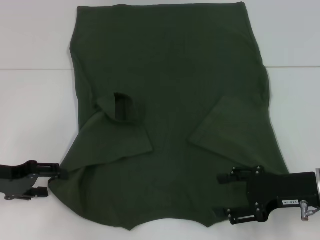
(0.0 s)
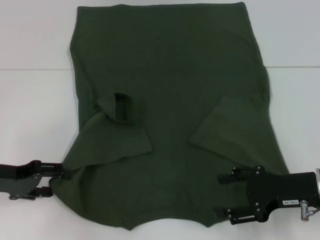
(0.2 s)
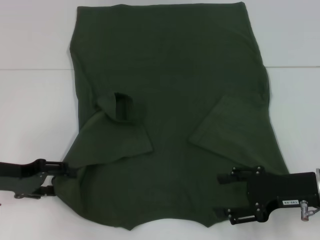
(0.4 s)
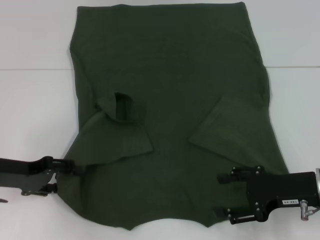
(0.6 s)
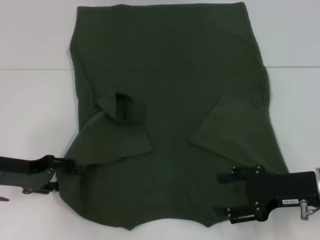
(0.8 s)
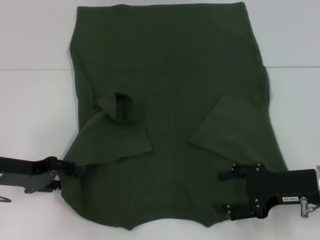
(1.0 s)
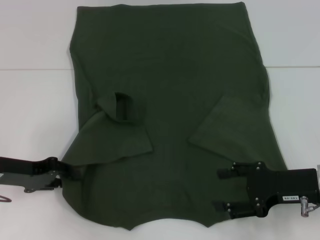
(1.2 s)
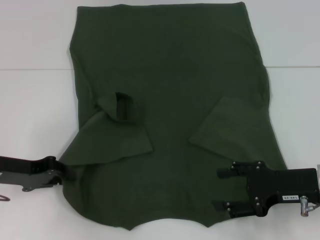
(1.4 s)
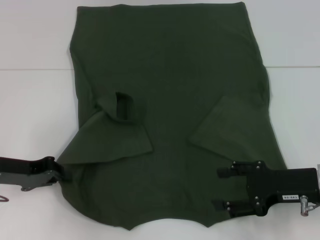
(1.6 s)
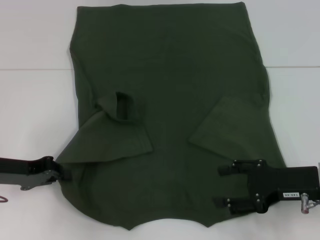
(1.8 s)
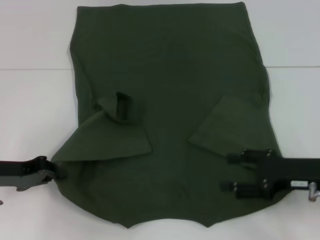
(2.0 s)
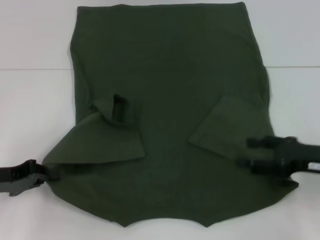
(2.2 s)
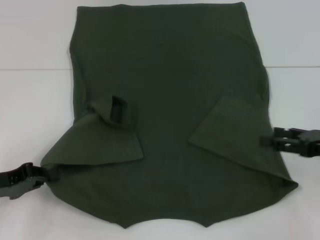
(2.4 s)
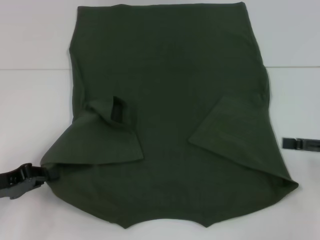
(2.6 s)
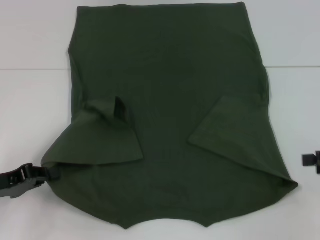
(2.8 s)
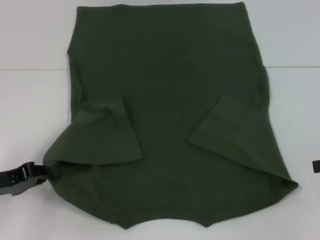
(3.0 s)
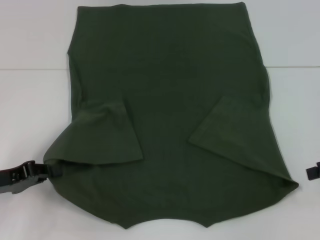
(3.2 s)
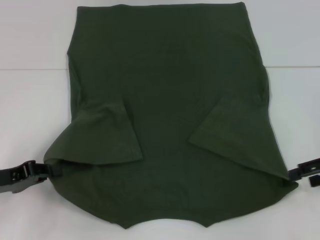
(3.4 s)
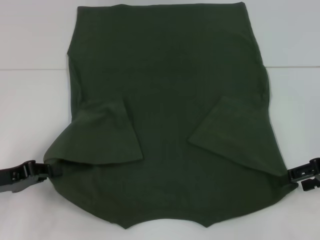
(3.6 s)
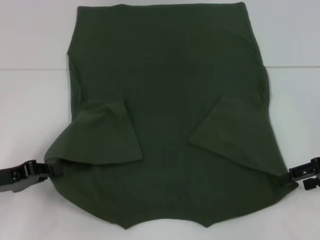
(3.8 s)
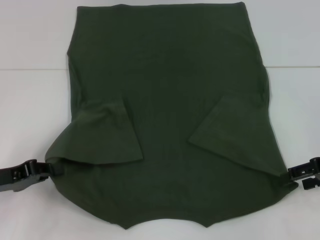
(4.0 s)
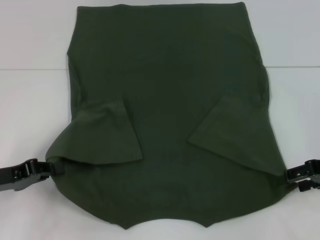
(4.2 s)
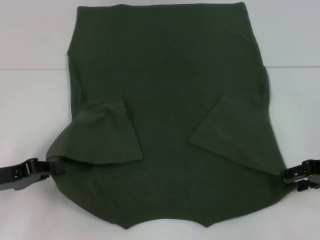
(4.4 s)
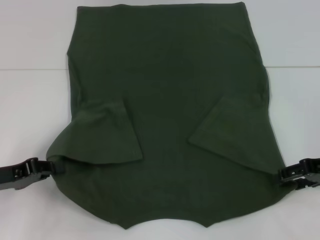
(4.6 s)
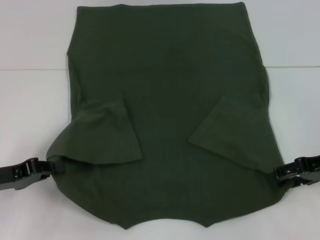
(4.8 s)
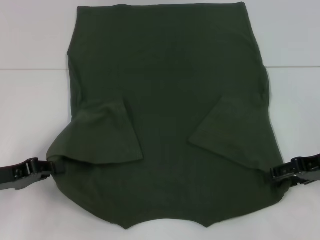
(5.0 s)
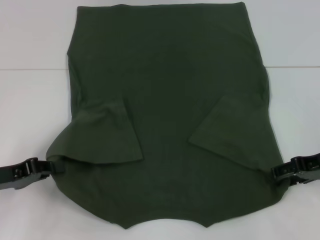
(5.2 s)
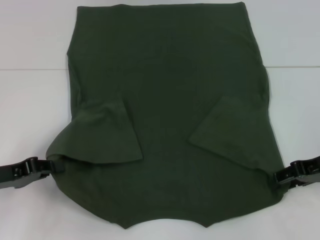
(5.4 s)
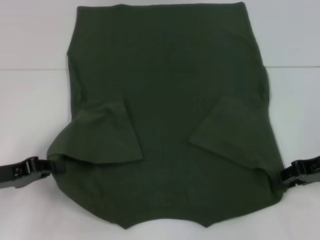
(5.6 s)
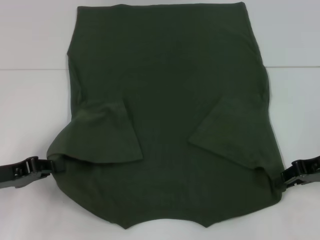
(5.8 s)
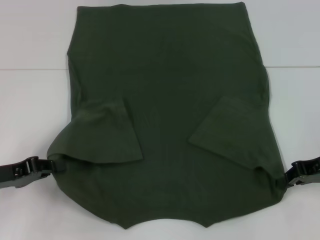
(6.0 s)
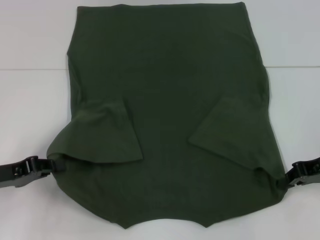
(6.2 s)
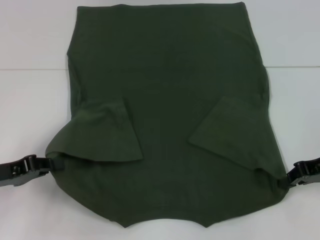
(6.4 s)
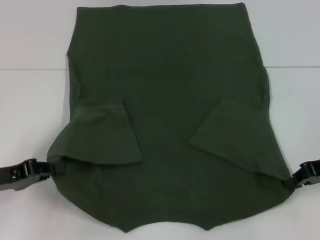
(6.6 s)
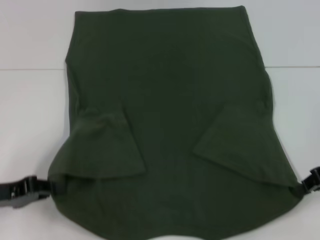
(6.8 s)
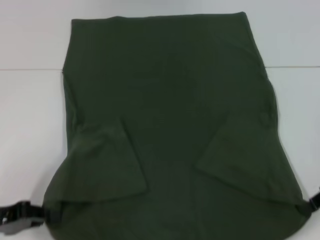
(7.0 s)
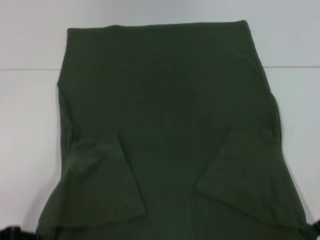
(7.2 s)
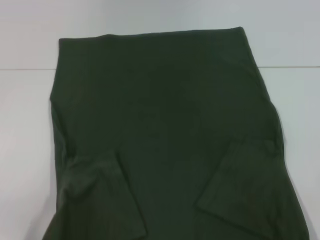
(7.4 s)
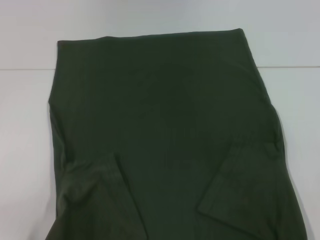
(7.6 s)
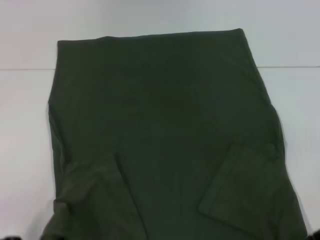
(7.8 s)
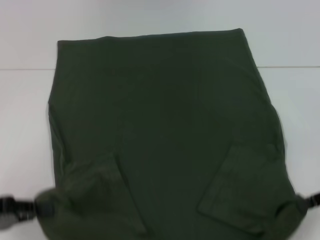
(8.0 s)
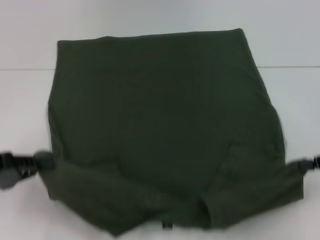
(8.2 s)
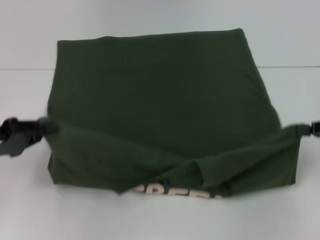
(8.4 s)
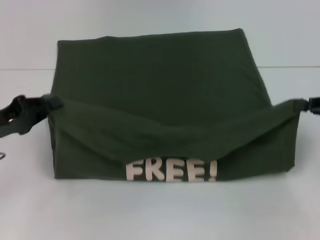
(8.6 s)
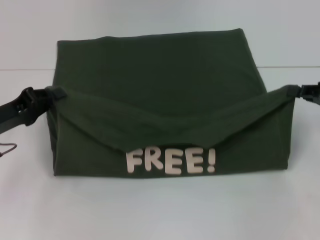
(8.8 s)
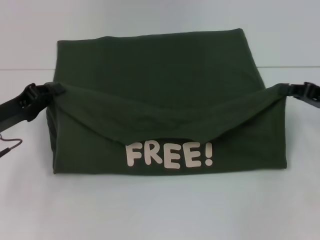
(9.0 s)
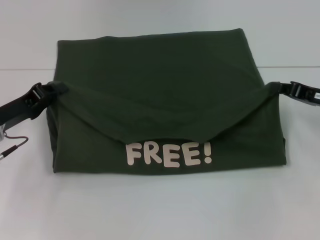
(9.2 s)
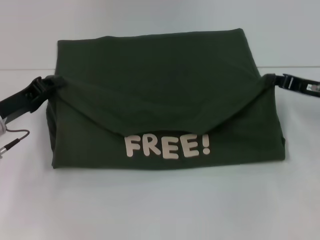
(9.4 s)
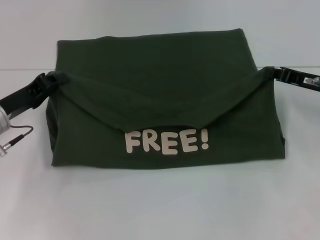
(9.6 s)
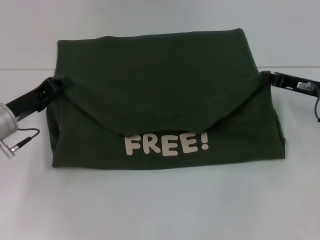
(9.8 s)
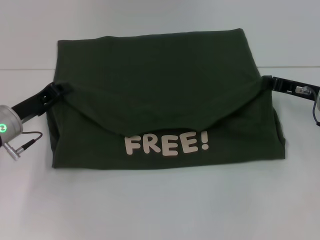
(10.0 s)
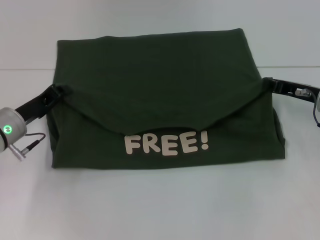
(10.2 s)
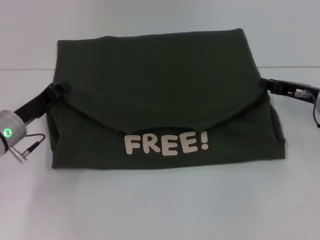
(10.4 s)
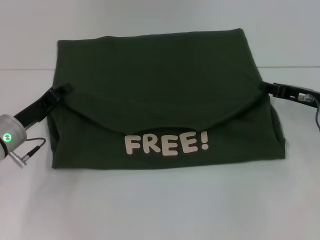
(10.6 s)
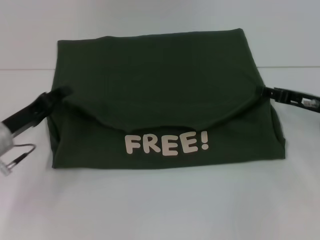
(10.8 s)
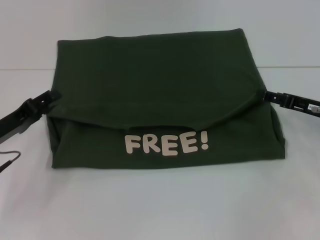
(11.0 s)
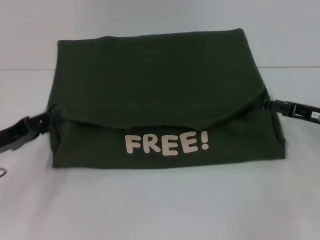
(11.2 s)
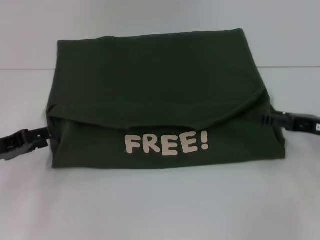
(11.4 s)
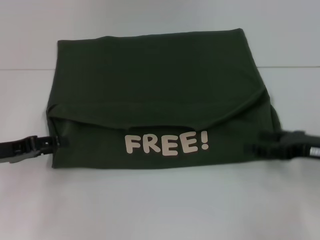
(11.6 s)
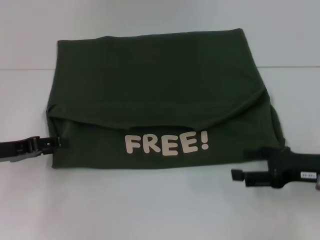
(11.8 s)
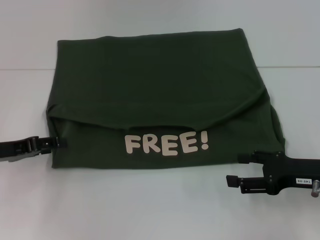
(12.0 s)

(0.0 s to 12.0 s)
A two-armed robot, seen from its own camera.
Step, 1.8 s - 6.4 s: Grab the bottom right corner with your right hand.
Step, 6.6 s - 10.6 s: Fold the clothes with your left hand.
Step, 6.6 s - 10.6 s: Fold the clothes with your right hand.
0.0 s - 1.6 s: The left gripper closes up.
1.6 s - 3.0 s: The left gripper heads backward, covering approximately 5 cm, while the right gripper shifts roughly 15 cm to the right and upward.
3.0 s - 4.4 s: The right gripper heads to the left, covering about 5 cm.
4.4 s - 6.0 s: The right gripper closes its fingers.
6.0 s - 7.6 s: The left gripper heads backward, covering approximately 10 cm; the right gripper is displaced backward by some 5 cm.
7.6 s - 9.0 s: The right gripper travels forward by approximately 10 cm. Meanwhile the left gripper moves forward, roughly 15 cm.
9.0 s - 10.4 s: The right gripper shifts by approximately 5 cm. The left gripper changes place by approximately 5 cm.
10.4 s - 12.0 s: The right gripper shifts about 10 cm backward, and opens up; the left gripper travels to the left by roughly 5 cm, and opens up.

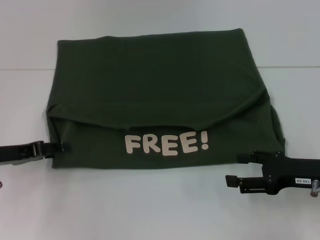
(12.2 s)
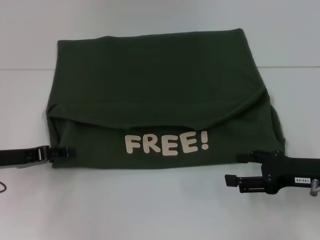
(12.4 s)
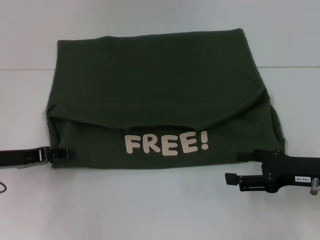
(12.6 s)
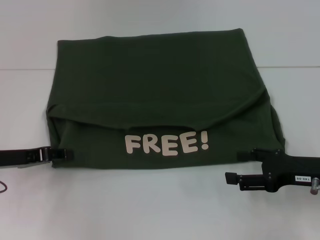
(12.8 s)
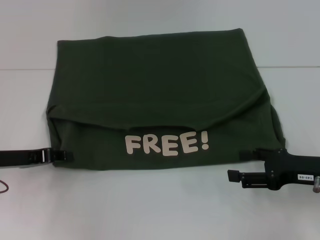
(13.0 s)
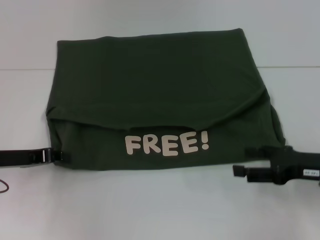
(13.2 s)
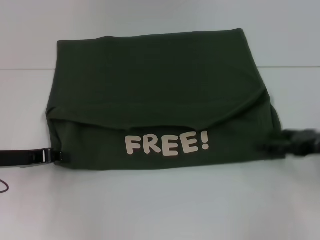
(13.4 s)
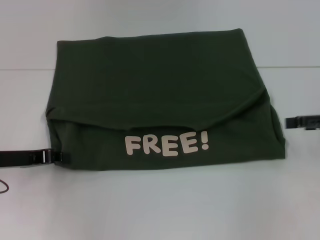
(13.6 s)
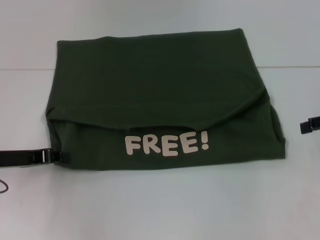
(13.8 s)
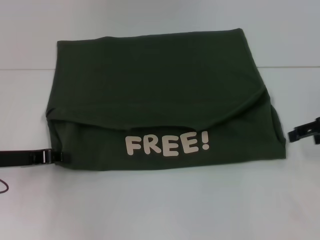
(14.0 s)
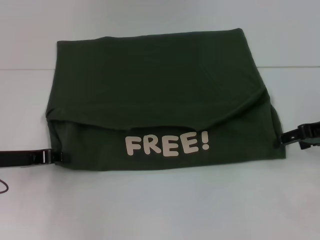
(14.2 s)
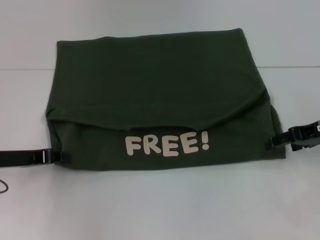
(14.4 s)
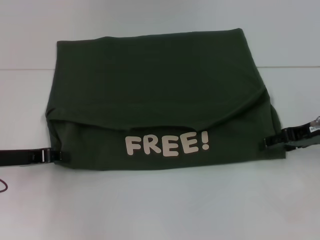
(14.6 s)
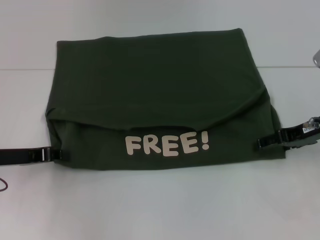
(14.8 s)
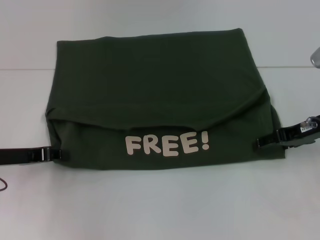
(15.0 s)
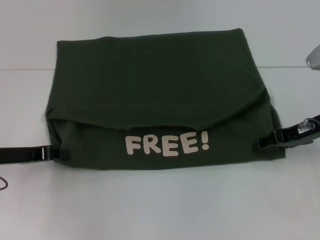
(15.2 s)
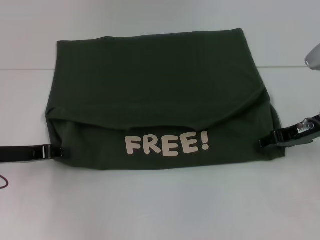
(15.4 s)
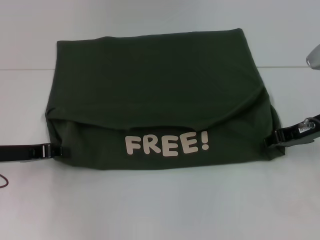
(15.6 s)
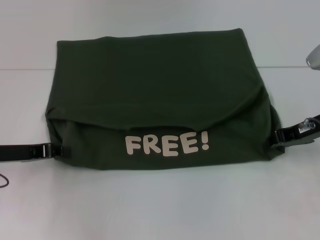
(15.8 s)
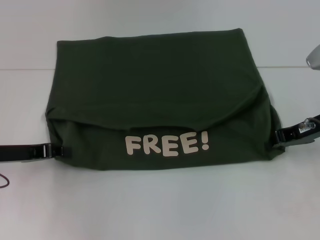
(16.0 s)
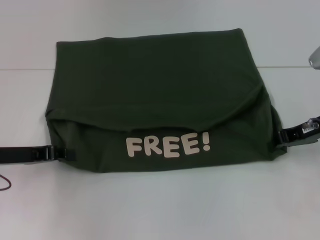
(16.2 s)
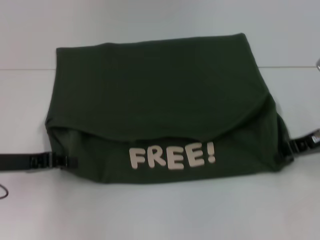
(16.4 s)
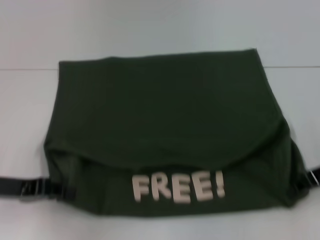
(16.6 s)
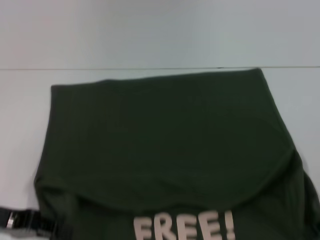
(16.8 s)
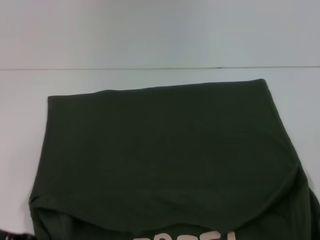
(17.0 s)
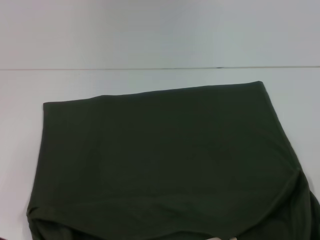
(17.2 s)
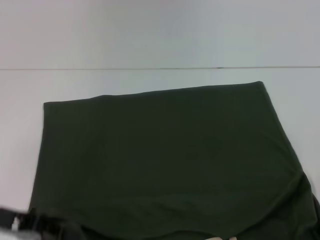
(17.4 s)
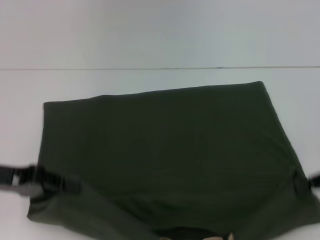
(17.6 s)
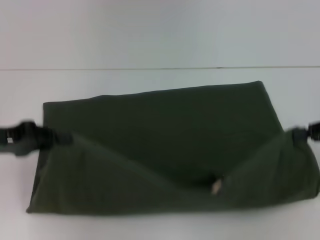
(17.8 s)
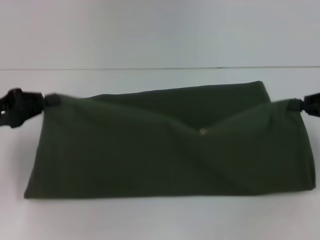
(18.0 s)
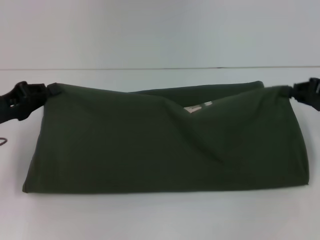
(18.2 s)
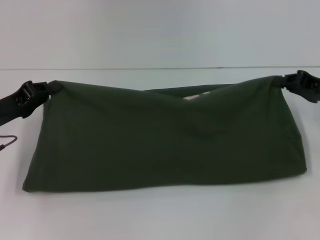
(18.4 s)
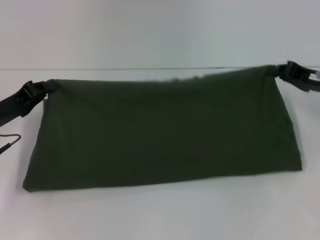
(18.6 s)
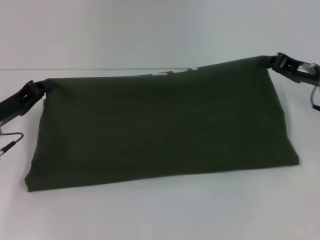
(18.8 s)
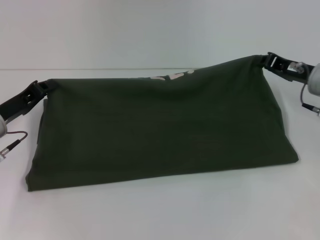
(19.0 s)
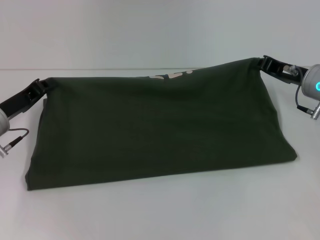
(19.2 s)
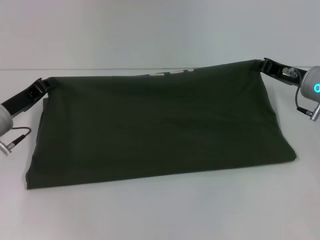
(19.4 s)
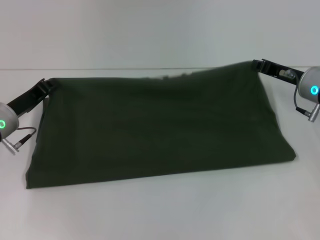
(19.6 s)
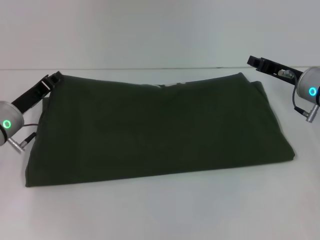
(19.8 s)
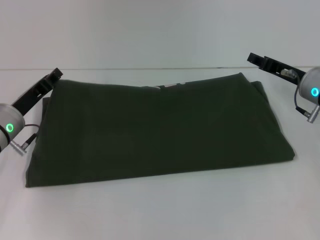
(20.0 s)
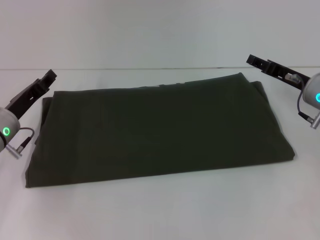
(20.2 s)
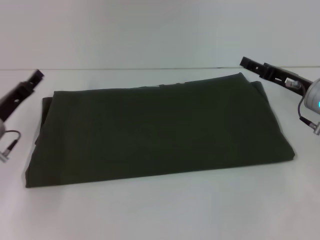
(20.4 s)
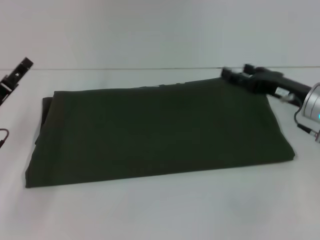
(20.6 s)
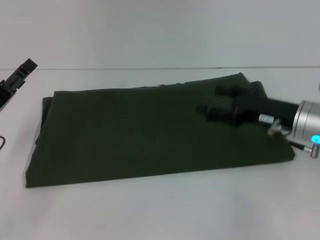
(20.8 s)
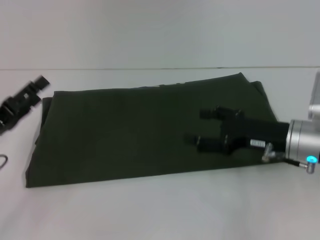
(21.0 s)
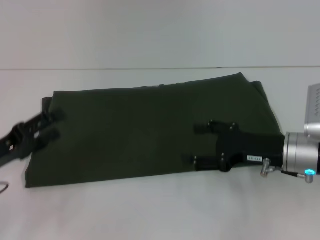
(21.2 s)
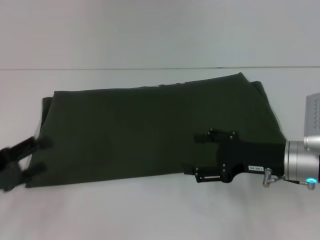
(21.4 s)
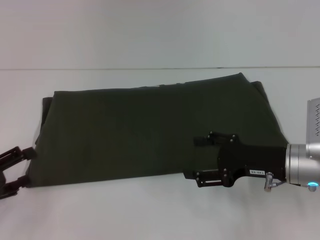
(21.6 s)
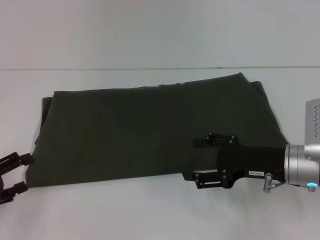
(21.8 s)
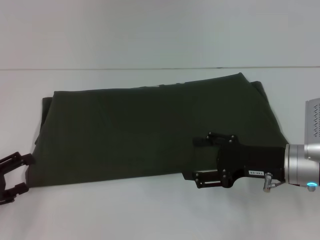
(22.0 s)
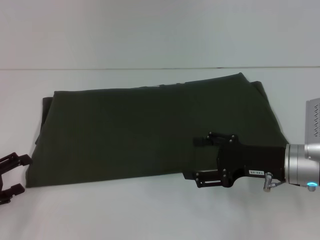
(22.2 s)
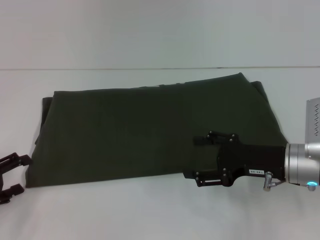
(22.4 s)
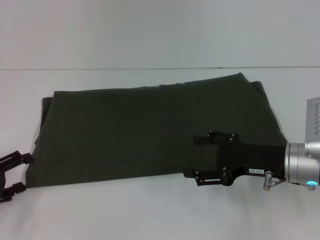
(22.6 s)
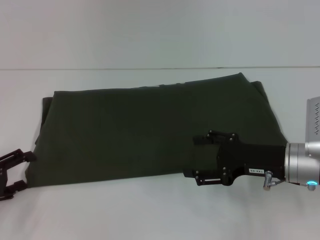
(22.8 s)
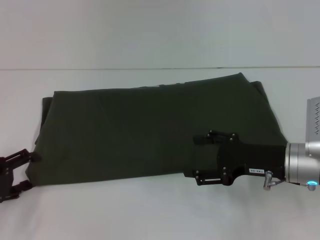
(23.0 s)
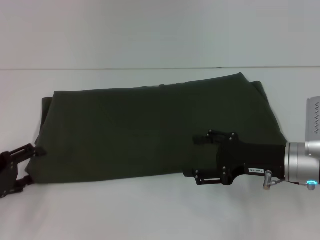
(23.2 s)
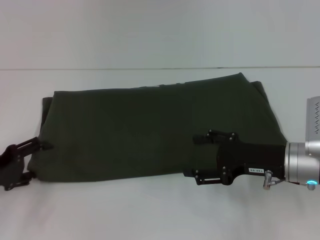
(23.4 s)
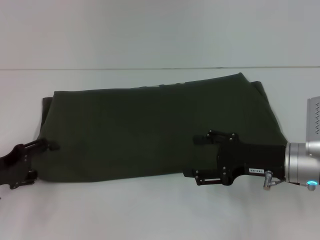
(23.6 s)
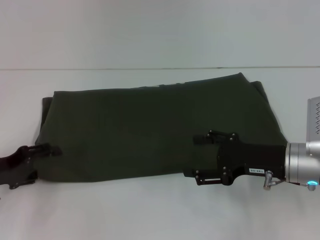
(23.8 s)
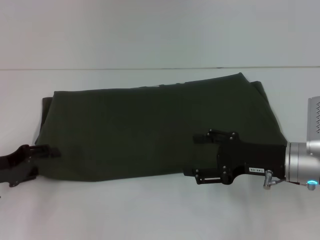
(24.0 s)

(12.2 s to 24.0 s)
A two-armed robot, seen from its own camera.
Step, 12.2 s - 17.2 s: Pull the clothes with your left hand.
Step, 12.2 s - 17.2 s: Pull the clothes with your right hand.
Step, 17.4 s - 20.0 s: Fold the clothes with your right hand.
12.2 s - 13.6 s: The left gripper closes. Meanwhile the right gripper shifts approximately 10 cm upward and to the right.
13.6 s - 15.2 s: The right gripper goes approximately 10 cm to the left.
15.2 s - 16.6 s: The right gripper shifts by approximately 5 cm, and closes.
16.6 s - 18.2 s: The right gripper moves approximately 5 cm backward and comes back.
18.2 s - 19.6 s: The left gripper shifts by roughly 5 cm. The right gripper moves to the left and forward, roughly 10 cm.
19.6 s - 21.0 s: The grippers both shift backward by approximately 10 cm. The left gripper opens. Meanwhile the right gripper opens up.
21.0 s - 22.6 s: The left gripper ends up approximately 5 cm from where it was.
22.6 s - 24.0 s: The left gripper changes place by some 5 cm.
